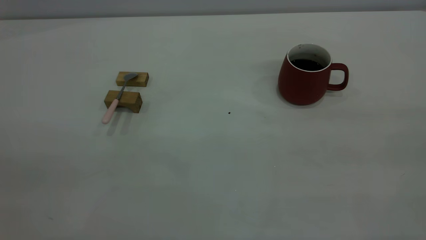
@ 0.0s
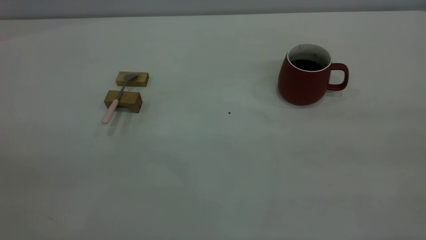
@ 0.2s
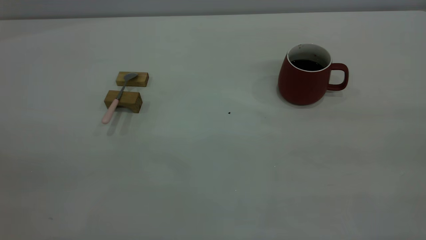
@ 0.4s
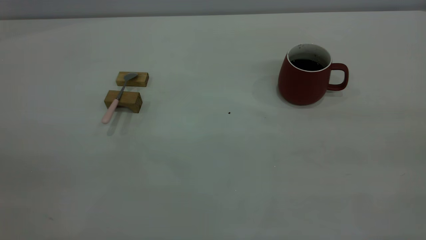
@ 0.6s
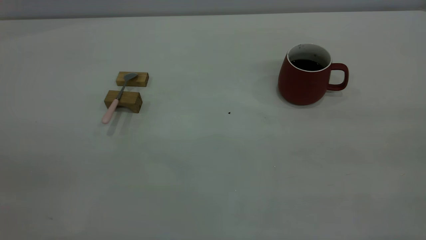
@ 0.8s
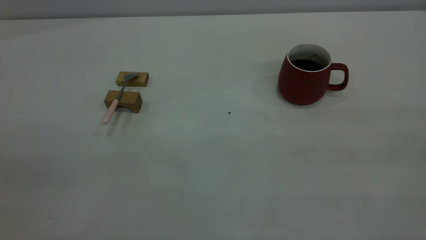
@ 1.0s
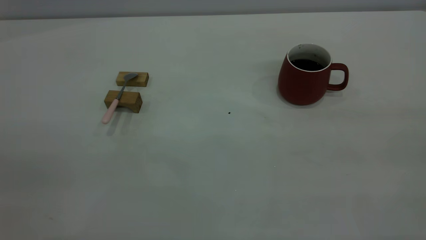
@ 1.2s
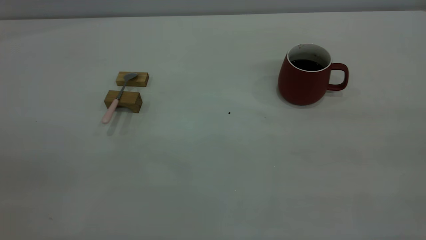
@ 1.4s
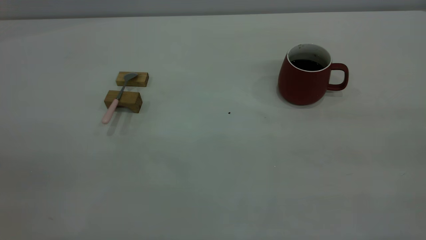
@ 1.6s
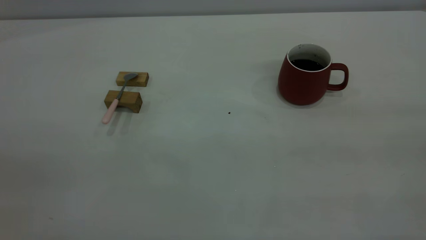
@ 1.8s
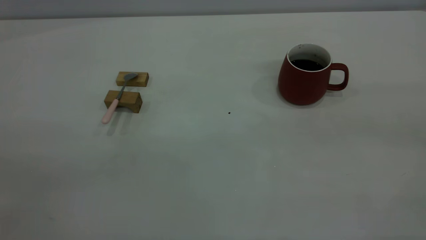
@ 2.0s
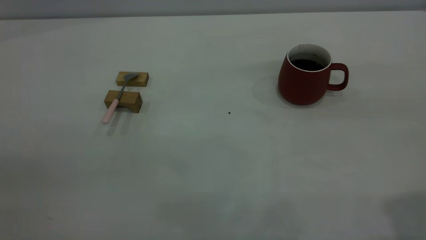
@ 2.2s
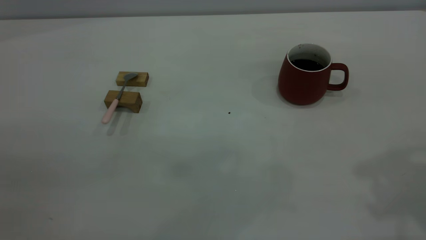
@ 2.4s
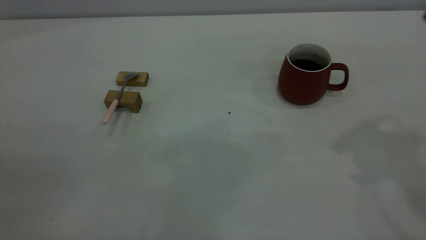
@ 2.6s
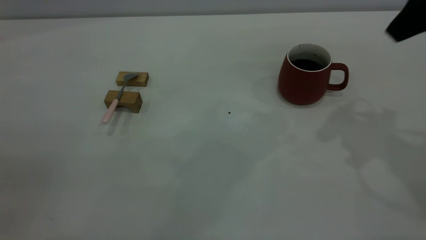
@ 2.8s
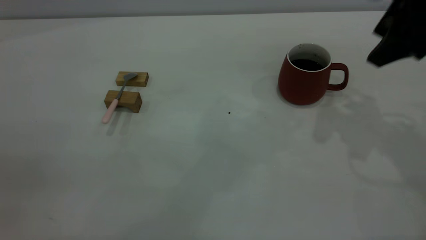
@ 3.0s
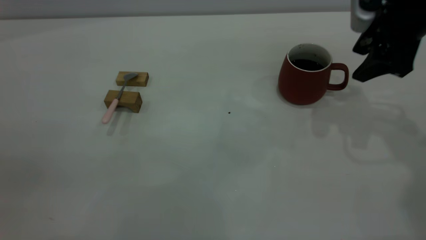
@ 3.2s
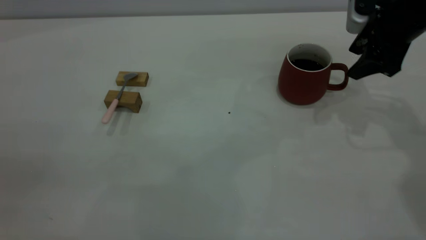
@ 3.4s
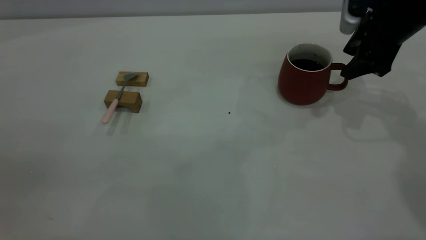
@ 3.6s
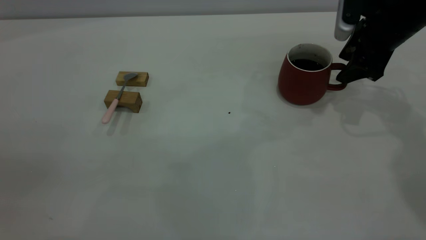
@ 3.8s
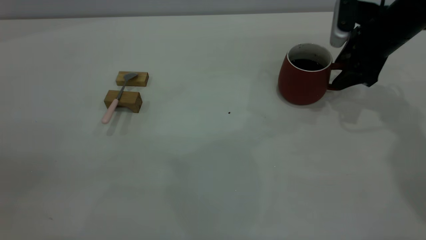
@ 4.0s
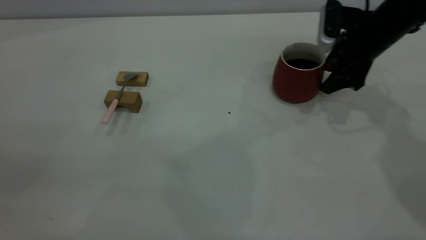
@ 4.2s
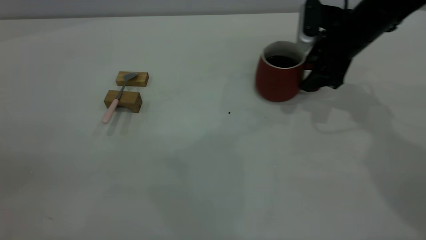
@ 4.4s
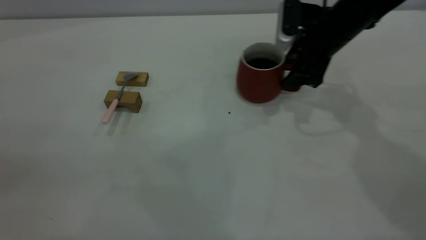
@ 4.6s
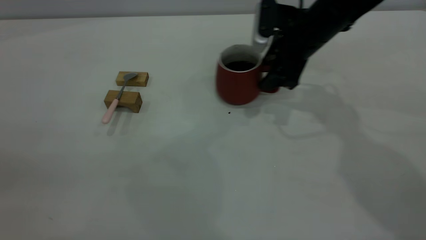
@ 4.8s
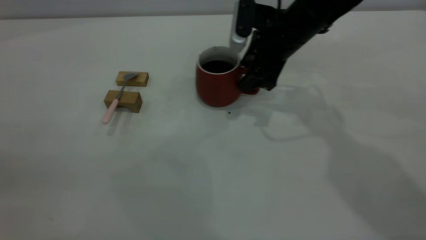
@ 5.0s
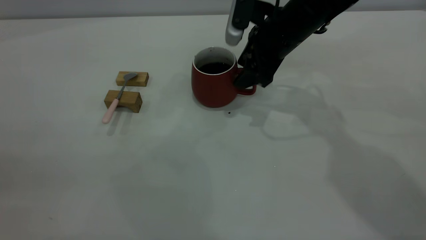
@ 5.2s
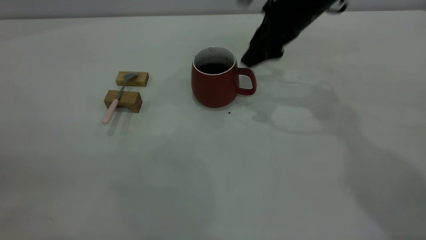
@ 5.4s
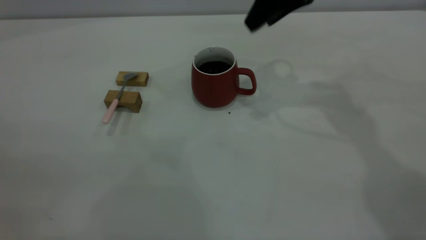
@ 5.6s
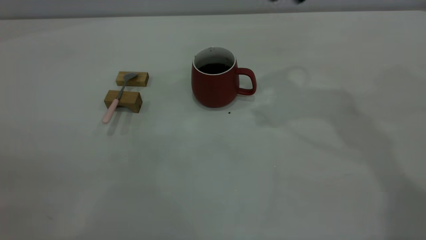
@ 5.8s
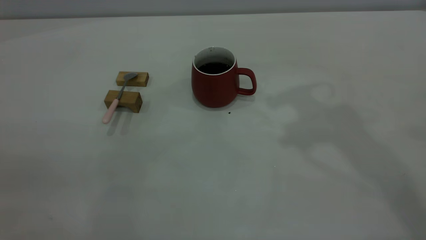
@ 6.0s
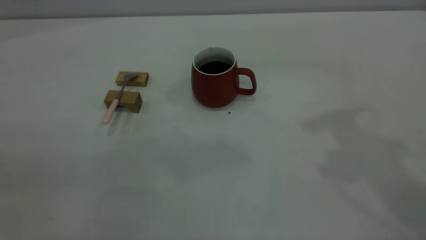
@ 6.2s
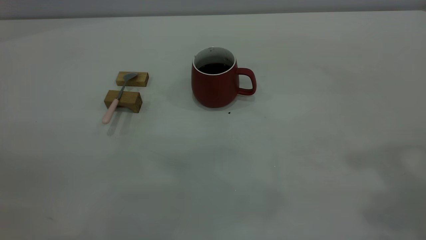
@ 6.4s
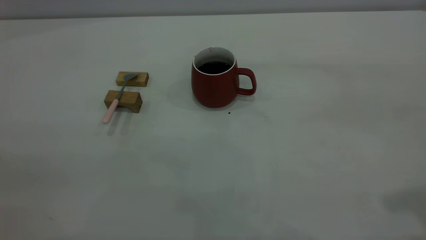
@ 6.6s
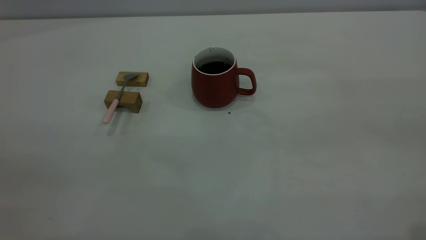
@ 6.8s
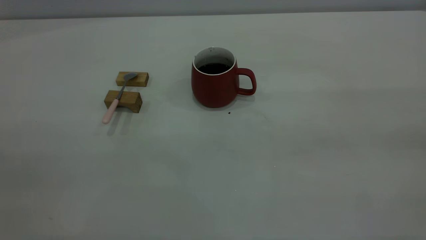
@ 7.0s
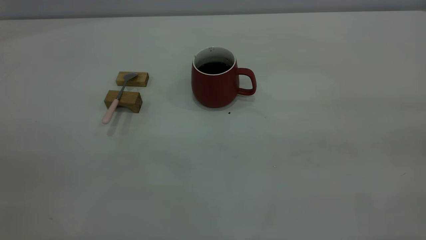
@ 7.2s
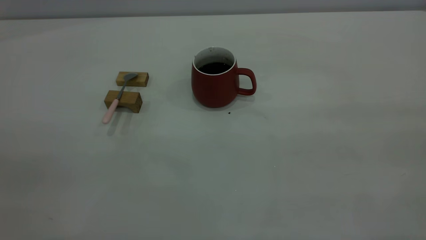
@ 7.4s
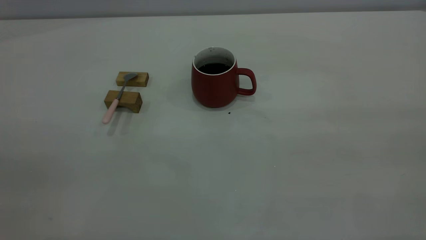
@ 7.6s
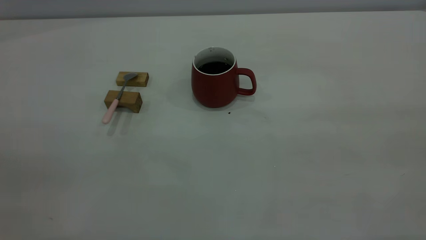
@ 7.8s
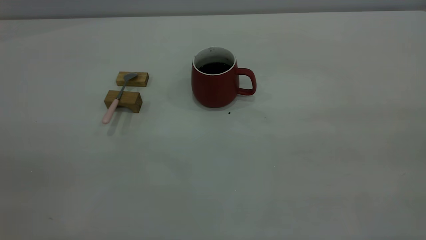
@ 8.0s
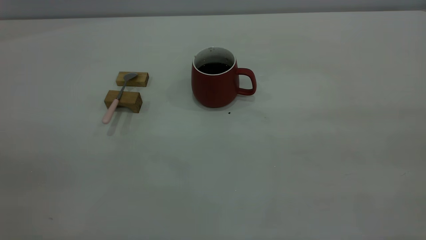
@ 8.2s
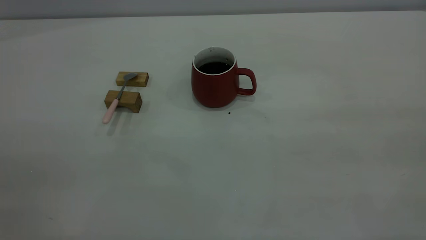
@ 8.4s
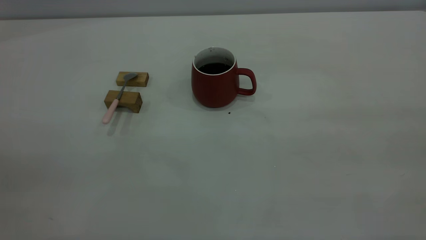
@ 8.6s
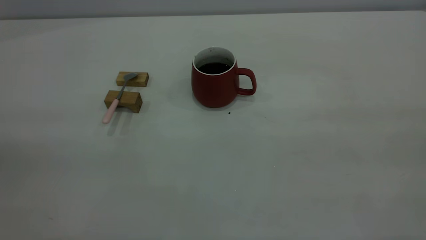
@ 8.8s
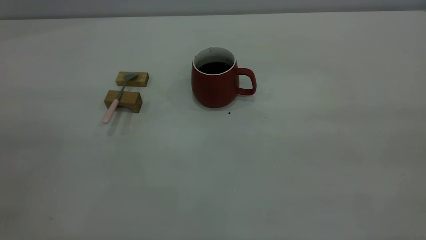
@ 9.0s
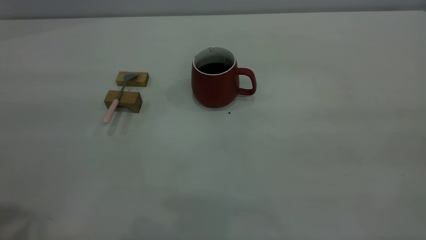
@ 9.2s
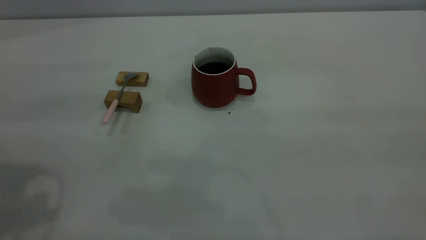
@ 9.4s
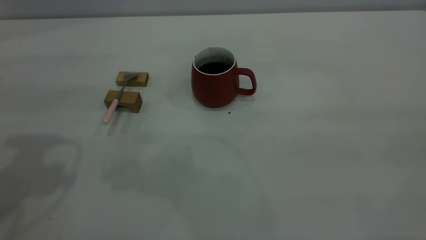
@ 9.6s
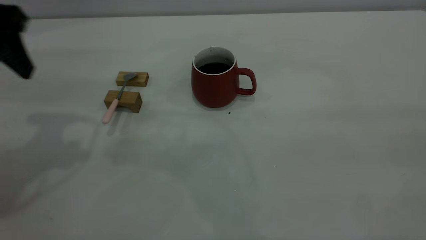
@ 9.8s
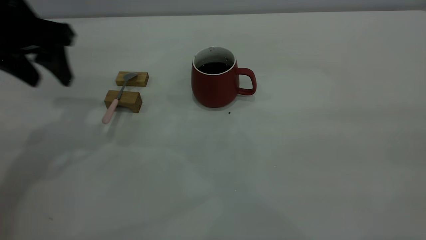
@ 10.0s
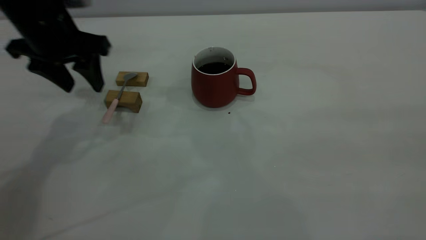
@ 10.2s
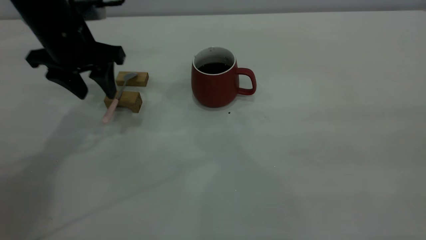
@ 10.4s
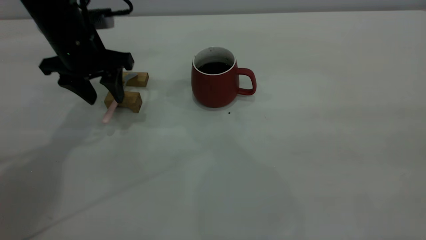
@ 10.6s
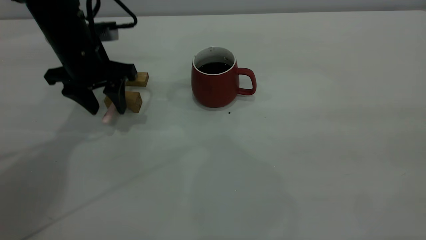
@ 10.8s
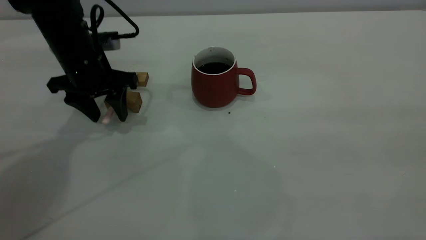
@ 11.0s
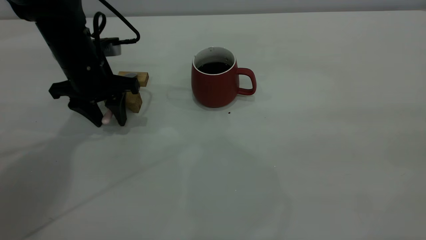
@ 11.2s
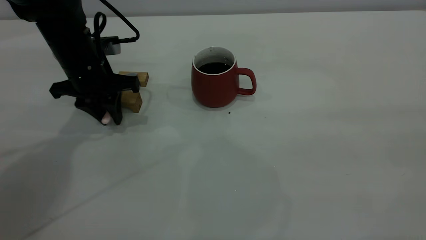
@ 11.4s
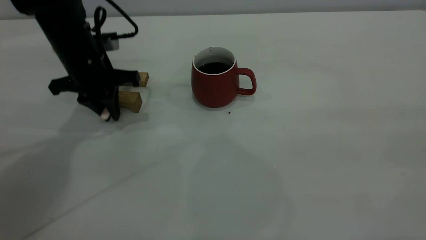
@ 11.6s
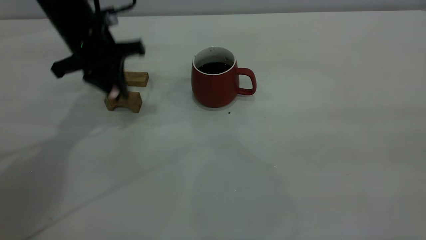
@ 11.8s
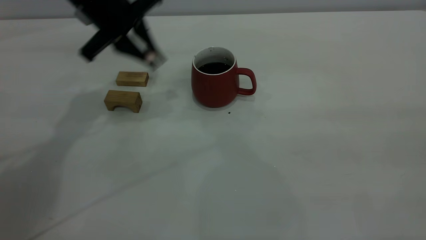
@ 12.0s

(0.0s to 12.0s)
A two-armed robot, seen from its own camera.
Step, 0.0s - 5.4s: Move the cup with coffee to the center of view.
Step, 5.6s - 11.8s: Pick up the spoon.
0.0s - 1.6s: Both grippers stay about where they are.
1.6s - 3.0s: The right gripper shifts roughly 35 cm forward and downward, and opens up.
3.0s - 4.4s: The right gripper travels downward and forward by about 15 cm.
4.4s - 6.0s: The right gripper shifts approximately 25 cm upward and backward.
9.0s - 10.4s: The left gripper goes approximately 40 cm forward and downward.
10.4s - 12.0s: The left gripper moves to the right, about 5 cm, and closes its fingers.

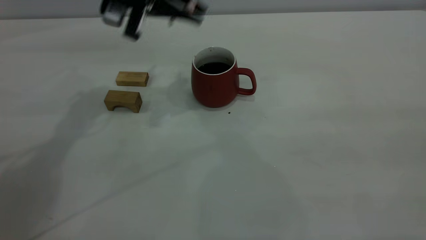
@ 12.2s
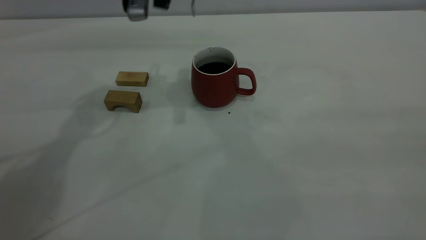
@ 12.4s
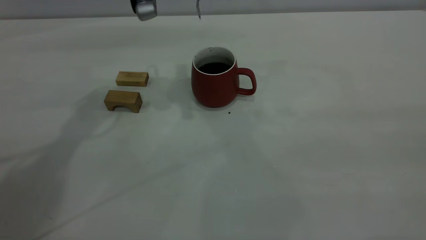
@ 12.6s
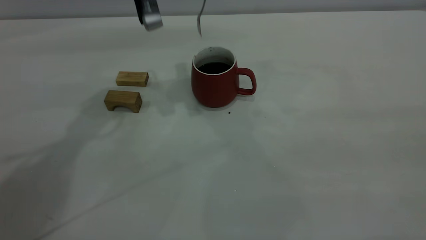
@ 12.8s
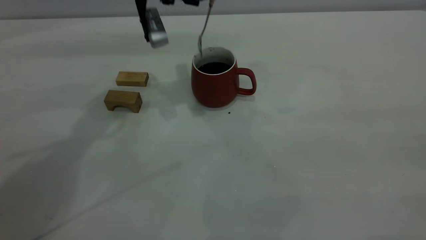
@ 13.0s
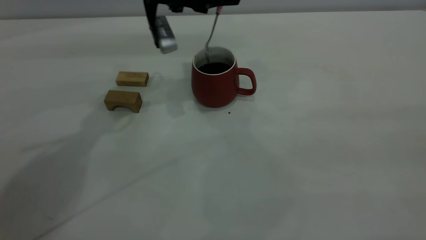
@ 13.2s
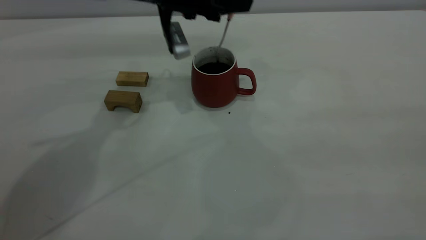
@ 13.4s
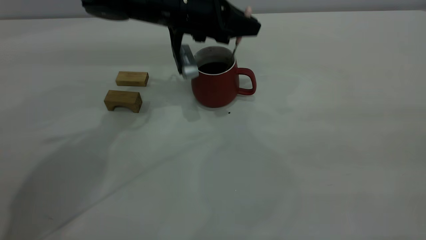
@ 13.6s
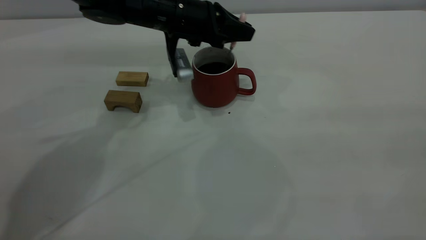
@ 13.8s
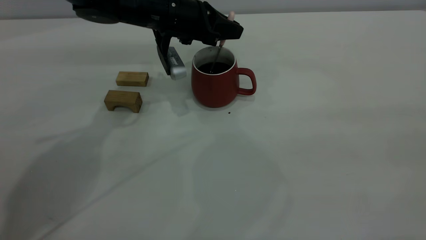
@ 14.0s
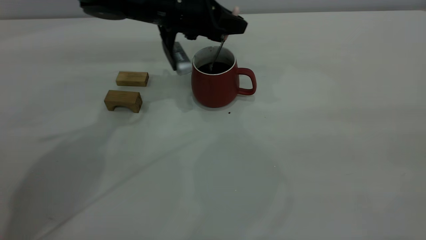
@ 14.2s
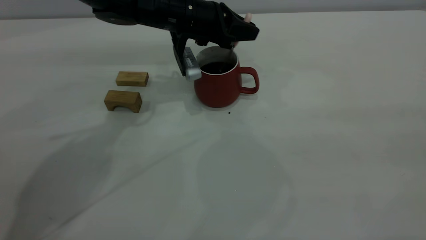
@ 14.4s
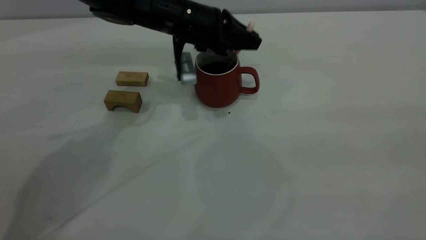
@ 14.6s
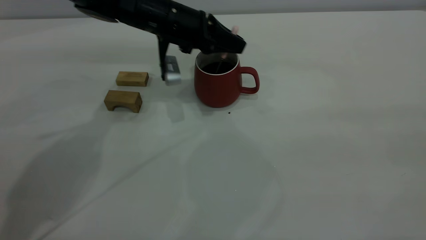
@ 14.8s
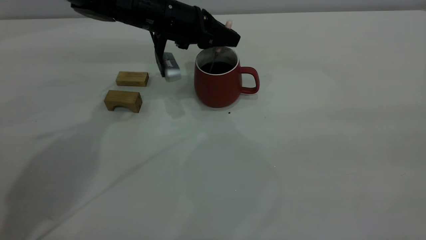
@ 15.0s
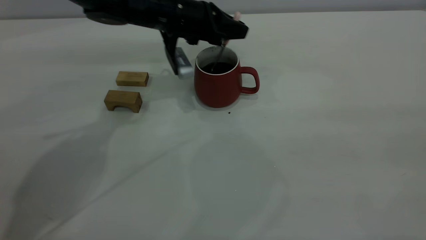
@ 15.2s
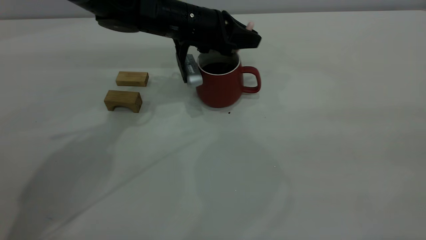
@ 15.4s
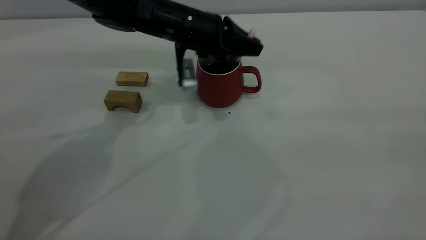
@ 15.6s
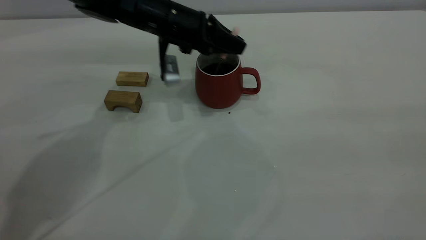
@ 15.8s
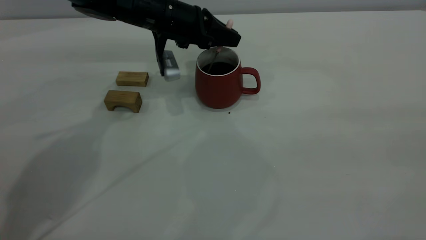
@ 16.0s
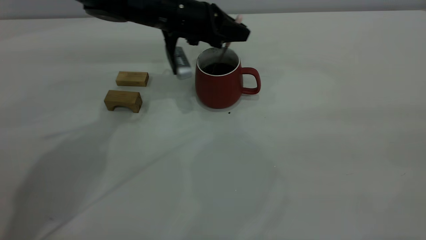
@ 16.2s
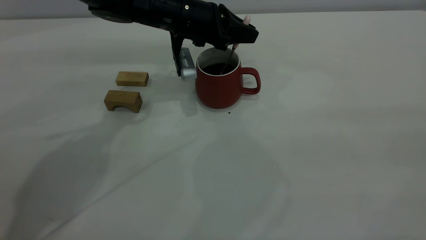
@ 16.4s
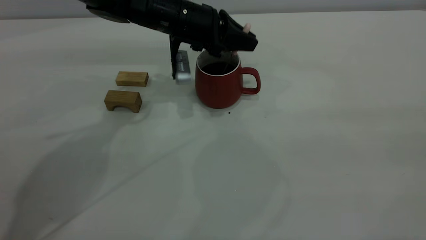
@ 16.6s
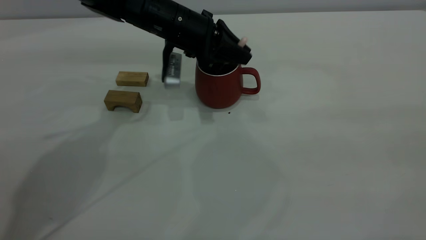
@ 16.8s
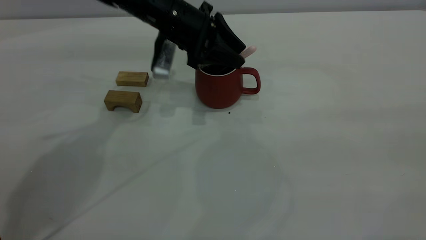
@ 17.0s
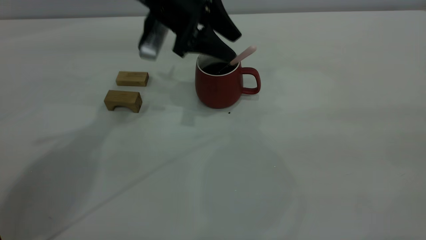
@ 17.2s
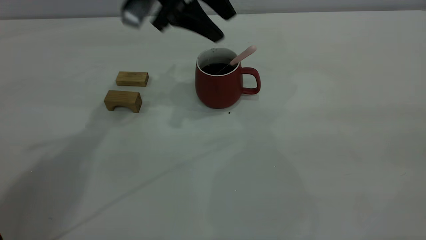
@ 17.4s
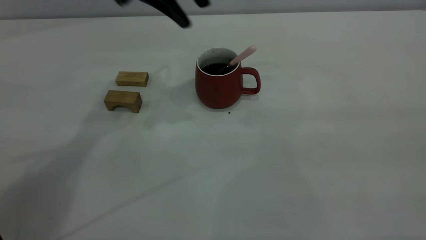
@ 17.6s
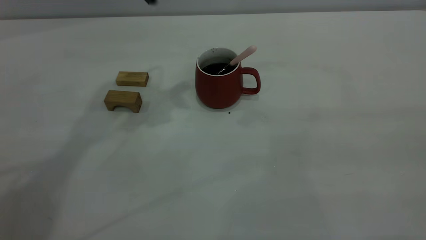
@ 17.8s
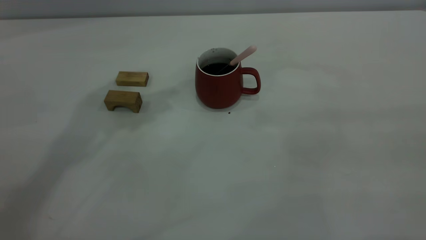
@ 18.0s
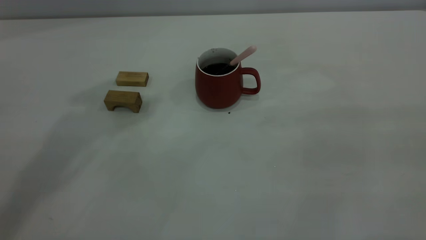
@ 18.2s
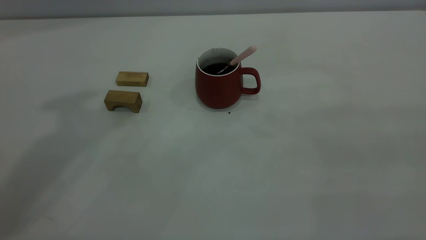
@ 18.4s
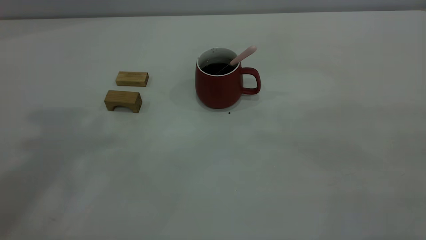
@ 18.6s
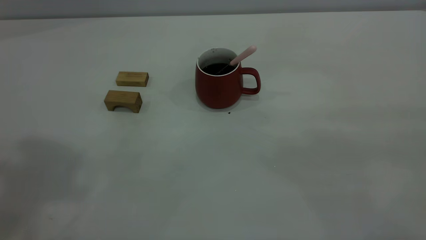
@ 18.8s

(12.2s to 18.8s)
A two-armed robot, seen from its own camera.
Step, 12.2s - 17.2s: Stir the coffee in the cup.
12.2s - 13.8s: The left gripper shifts roughly 10 cm downward.
13.8s - 15.4s: The grippers stay close to where they were, moving slightly.
15.4s - 17.2s: The left gripper is displaced upward by about 10 cm, and opens its fingers.
17.2s - 18.8s: The left gripper is displaced upward and backward by approximately 40 cm.
